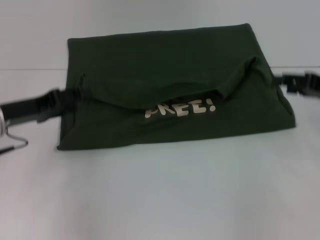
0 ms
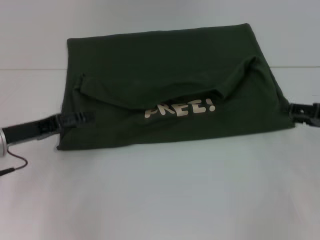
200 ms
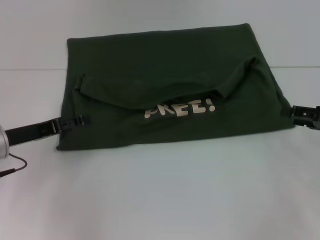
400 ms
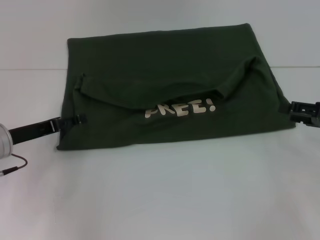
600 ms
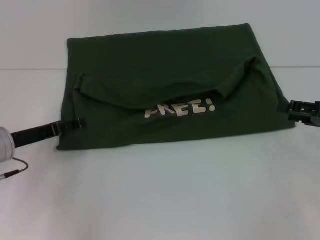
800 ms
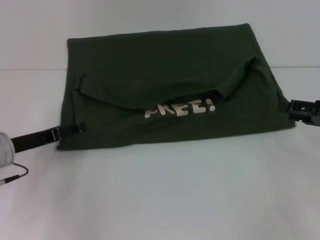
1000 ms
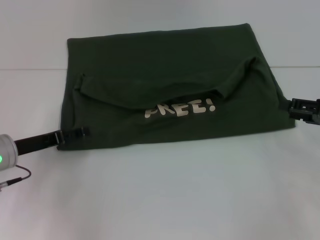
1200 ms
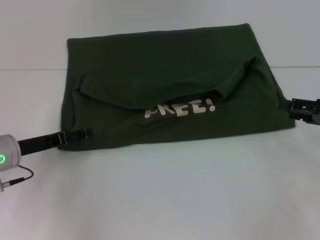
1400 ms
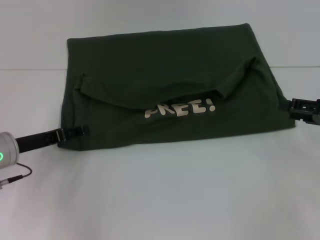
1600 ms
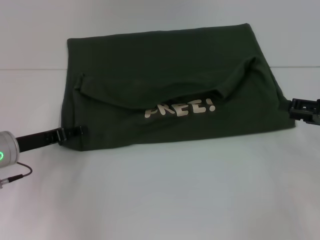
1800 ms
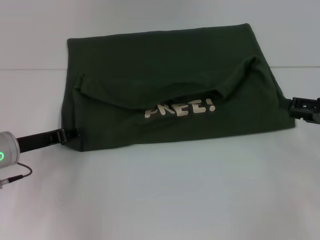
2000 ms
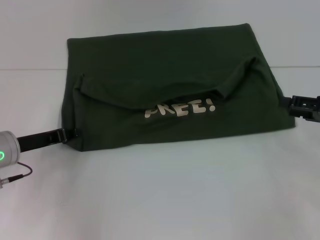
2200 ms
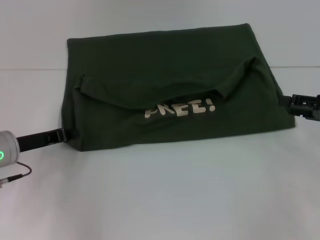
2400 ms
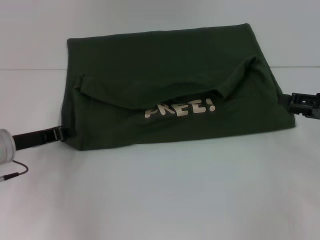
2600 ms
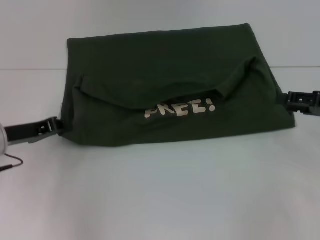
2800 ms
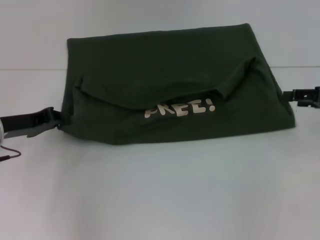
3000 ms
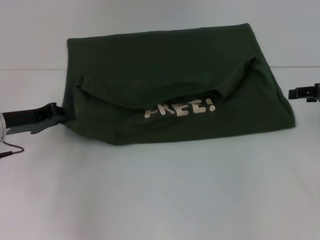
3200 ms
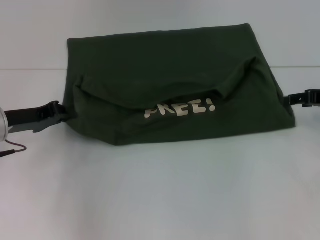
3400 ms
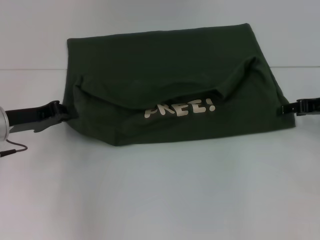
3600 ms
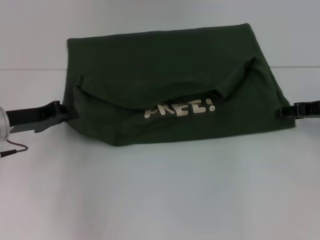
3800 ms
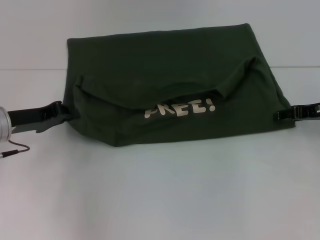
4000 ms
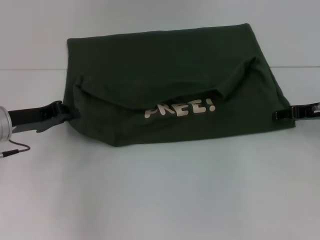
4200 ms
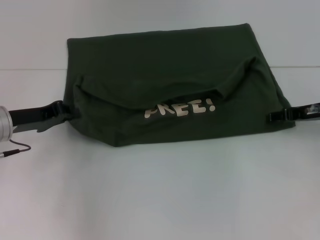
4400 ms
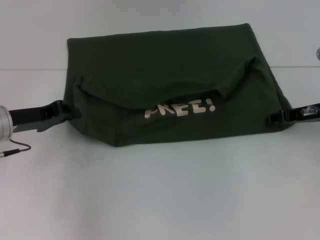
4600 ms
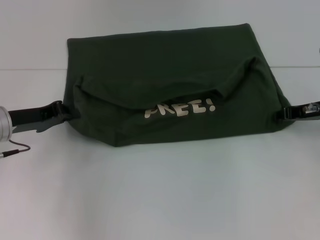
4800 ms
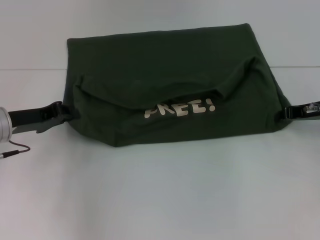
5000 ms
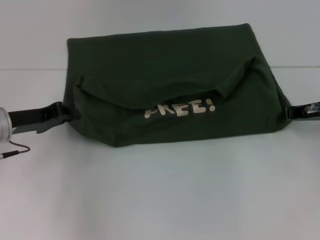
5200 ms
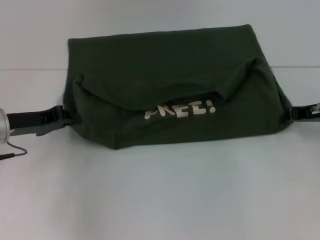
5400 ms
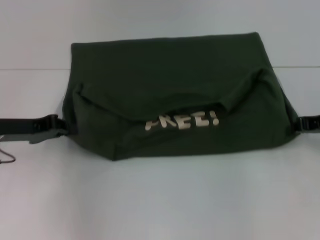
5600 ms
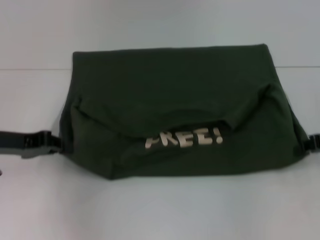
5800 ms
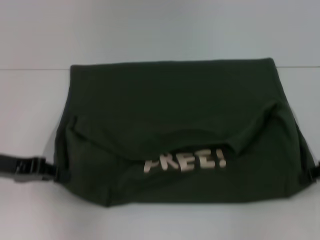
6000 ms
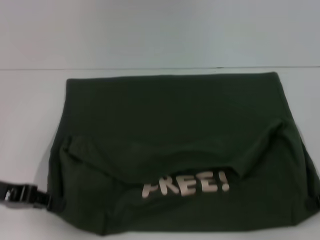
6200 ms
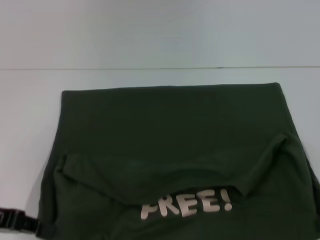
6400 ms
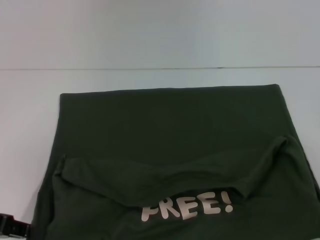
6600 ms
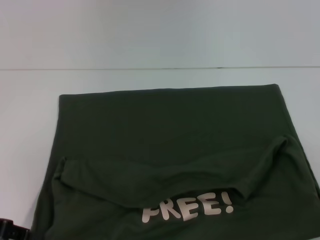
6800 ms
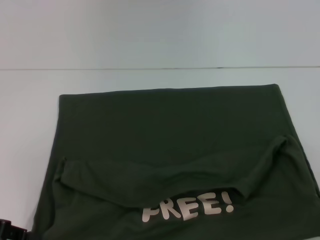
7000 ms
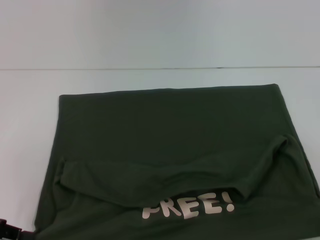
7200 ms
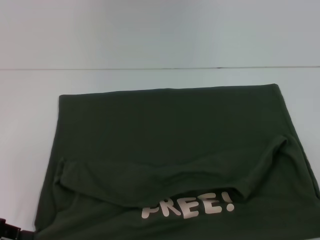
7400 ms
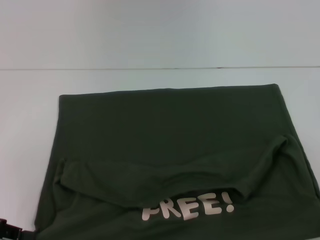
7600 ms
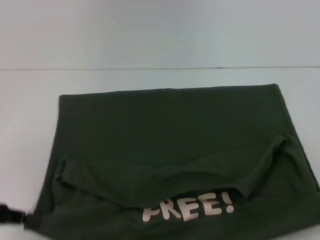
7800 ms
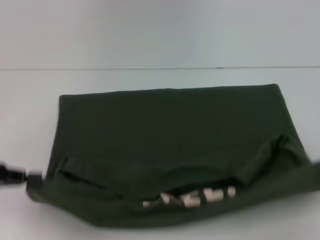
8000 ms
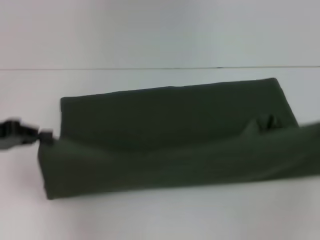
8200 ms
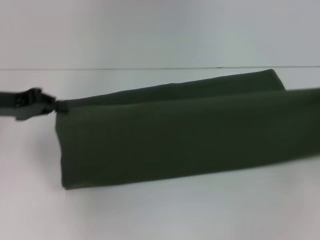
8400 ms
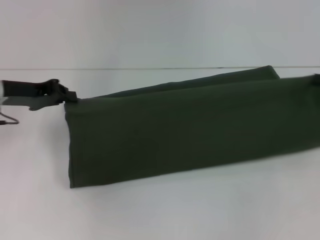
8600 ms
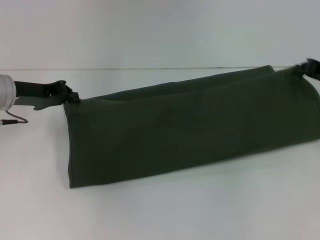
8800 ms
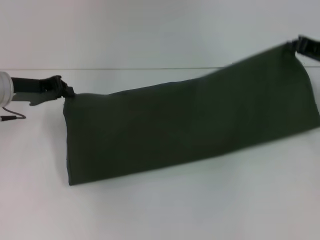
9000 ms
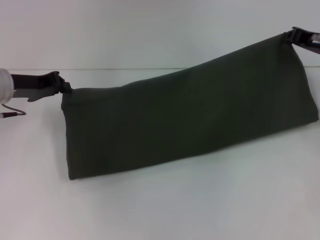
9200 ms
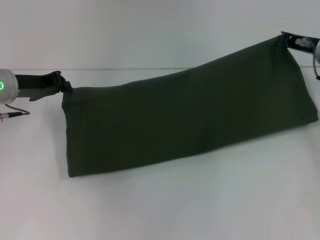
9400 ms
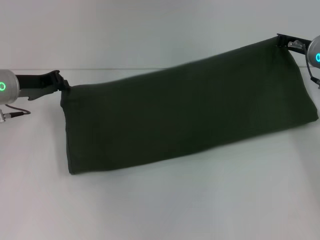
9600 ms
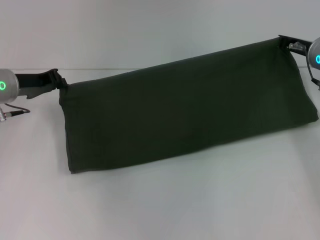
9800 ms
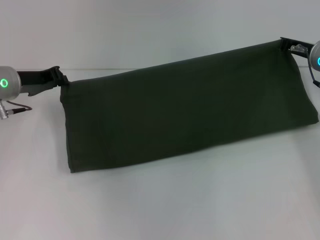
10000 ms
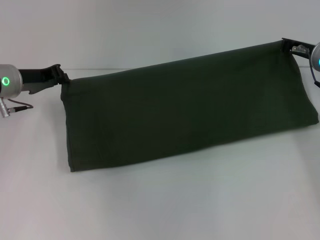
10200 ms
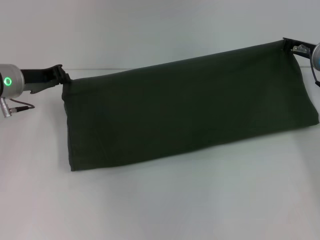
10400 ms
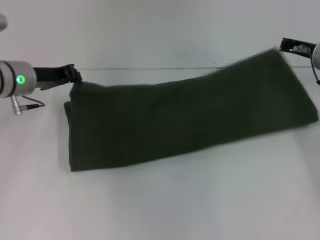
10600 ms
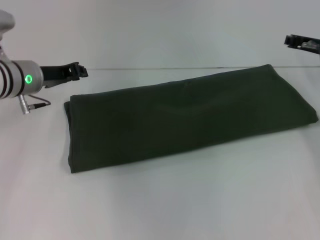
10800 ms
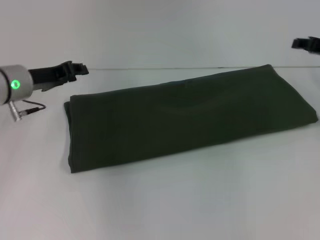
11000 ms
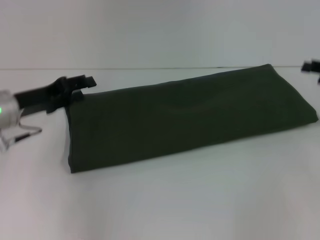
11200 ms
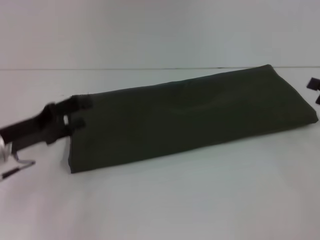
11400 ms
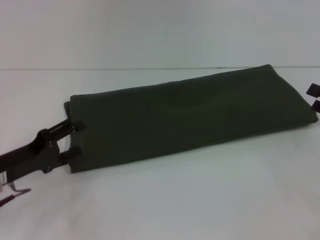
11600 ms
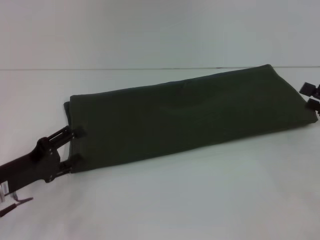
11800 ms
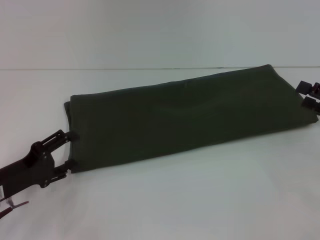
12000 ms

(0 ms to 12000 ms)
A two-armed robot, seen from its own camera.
Step, 0 ms - 7000 ms: Pull the clothes with your left hand.
Step, 0 ms - 7000 ms: Pull the clothes with your right hand.
Step, 7200 ms - 10600 ms: Fold the clothes with your right hand.
0 ms - 1600 ms: The right gripper ends up roughly 5 cm from where it was, while the left gripper goes roughly 5 cm downward, and opens.
1600 ms - 3000 ms: The left gripper closes.
3000 ms - 4400 ms: The right gripper shifts about 5 cm to the left.
4400 ms - 6000 ms: The left gripper is displaced backward by roughly 5 cm; the right gripper heads backward, covering approximately 10 cm, and closes.
6000 ms - 7600 ms: Both grippers move backward, about 5 cm.
7600 ms - 9000 ms: The right gripper is displaced forward and to the left by about 20 cm. Meanwhile the left gripper travels forward by some 15 cm.
9000 ms - 10400 ms: The right gripper changes place by about 5 cm.
10400 ms - 12000 ms: The left gripper travels backward and downward by about 20 cm, and opens up. Meanwhile the right gripper travels backward and to the right by some 20 cm, and opens its fingers.

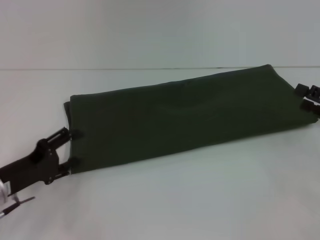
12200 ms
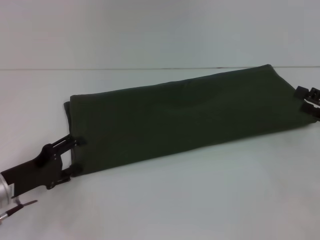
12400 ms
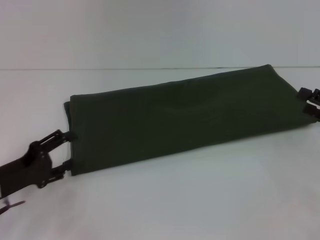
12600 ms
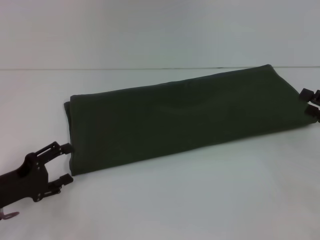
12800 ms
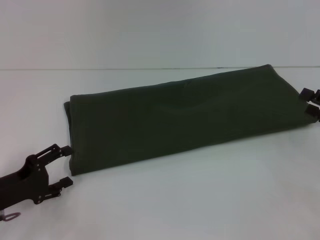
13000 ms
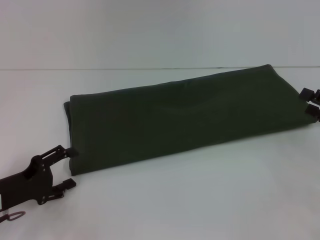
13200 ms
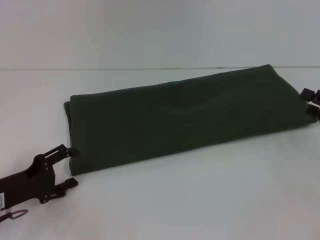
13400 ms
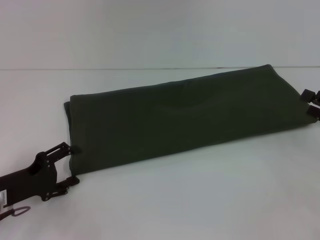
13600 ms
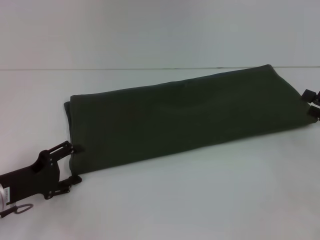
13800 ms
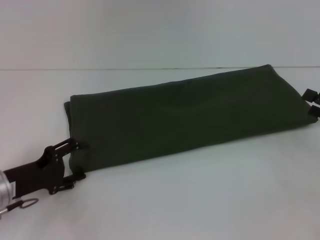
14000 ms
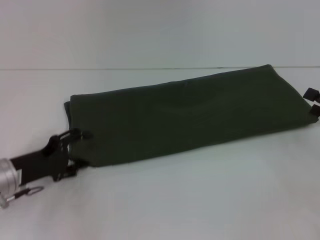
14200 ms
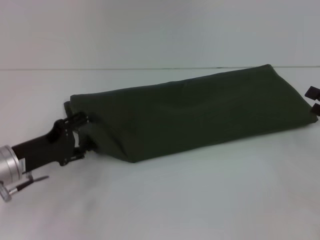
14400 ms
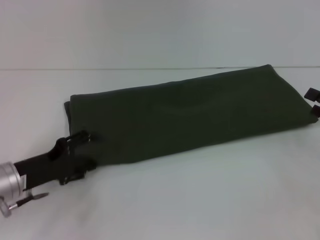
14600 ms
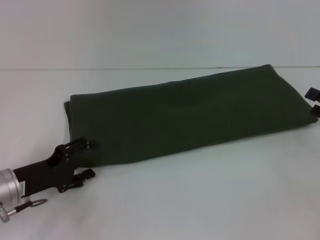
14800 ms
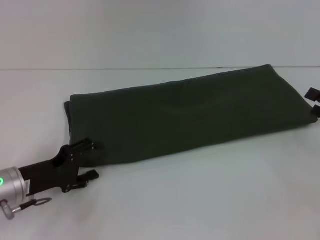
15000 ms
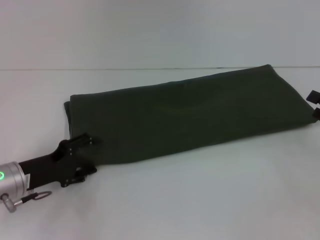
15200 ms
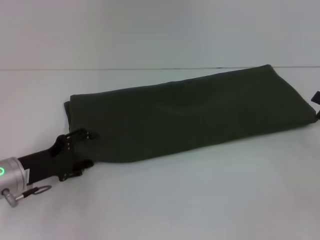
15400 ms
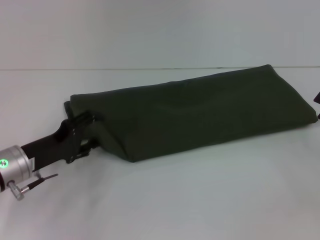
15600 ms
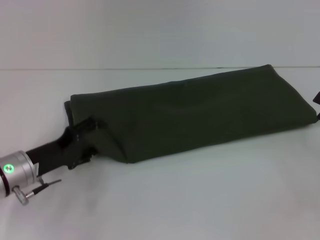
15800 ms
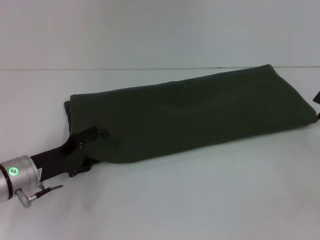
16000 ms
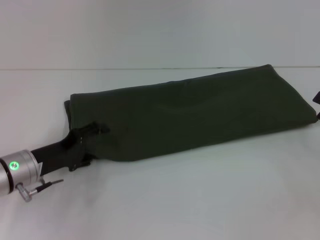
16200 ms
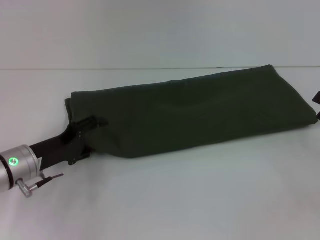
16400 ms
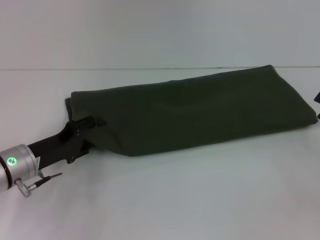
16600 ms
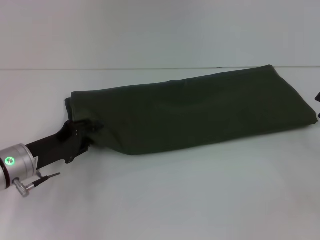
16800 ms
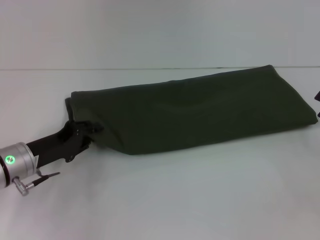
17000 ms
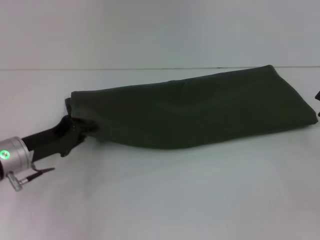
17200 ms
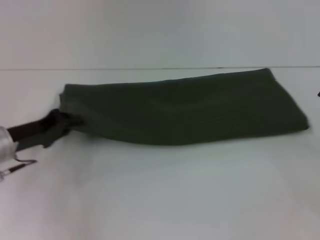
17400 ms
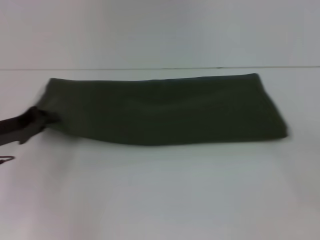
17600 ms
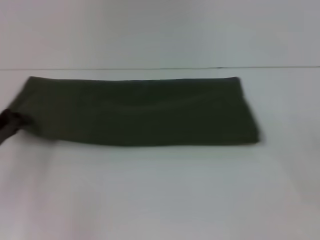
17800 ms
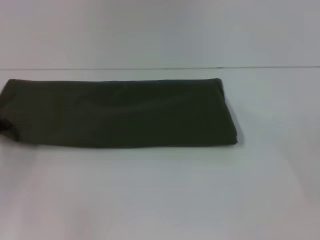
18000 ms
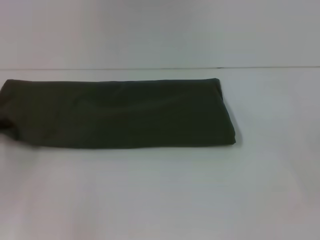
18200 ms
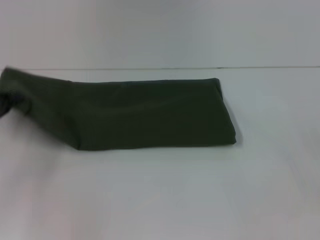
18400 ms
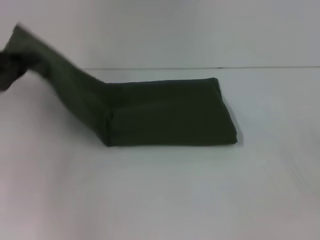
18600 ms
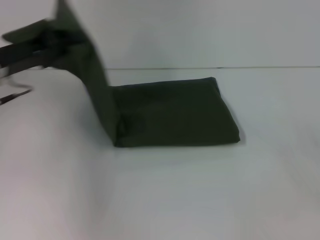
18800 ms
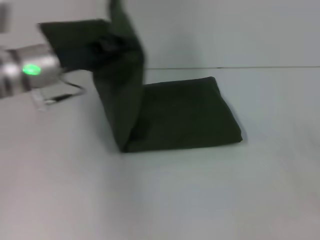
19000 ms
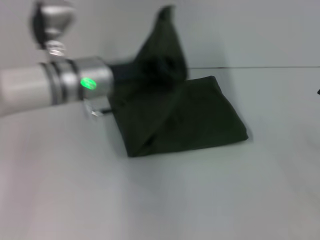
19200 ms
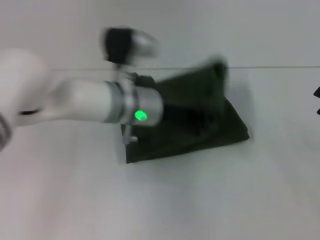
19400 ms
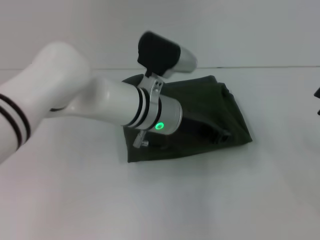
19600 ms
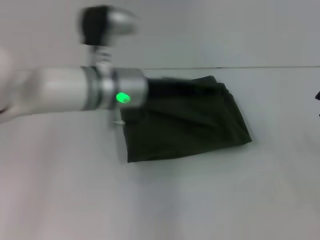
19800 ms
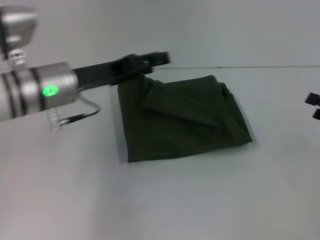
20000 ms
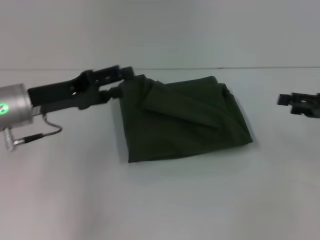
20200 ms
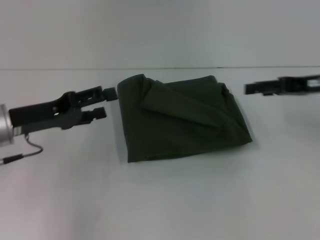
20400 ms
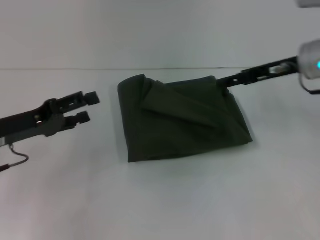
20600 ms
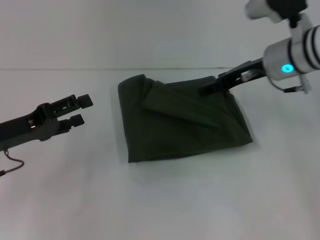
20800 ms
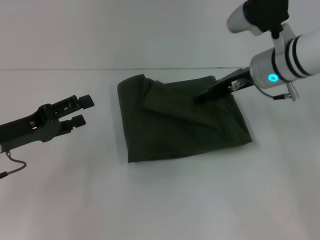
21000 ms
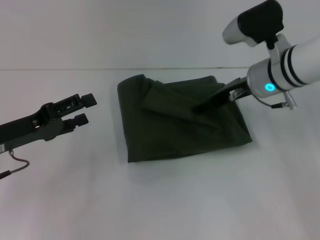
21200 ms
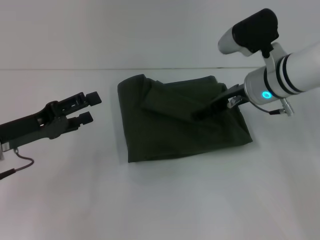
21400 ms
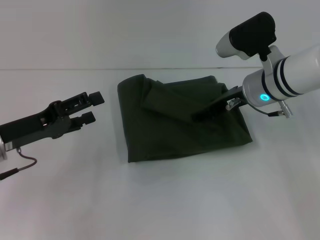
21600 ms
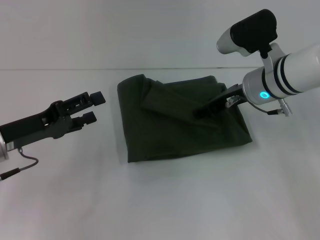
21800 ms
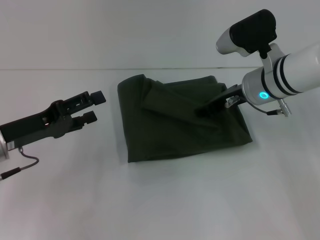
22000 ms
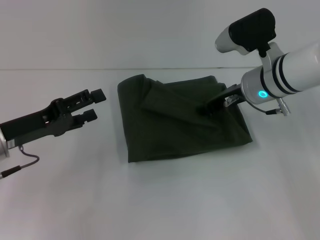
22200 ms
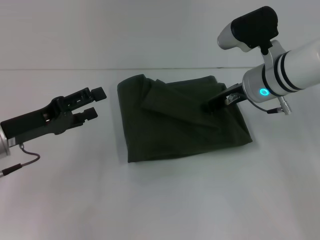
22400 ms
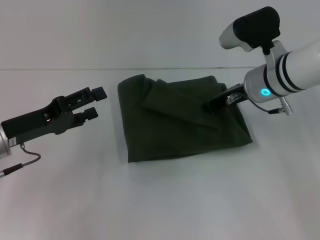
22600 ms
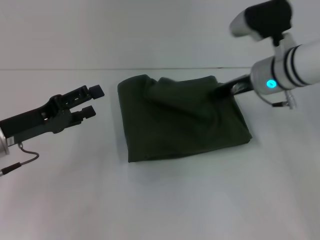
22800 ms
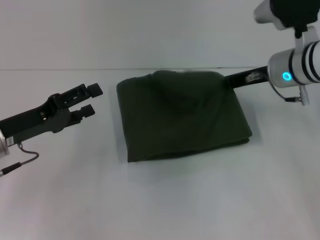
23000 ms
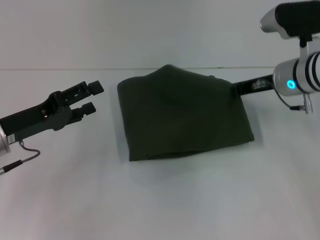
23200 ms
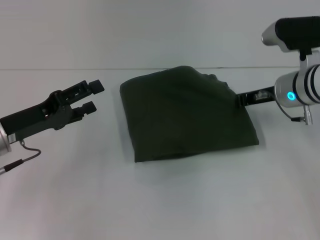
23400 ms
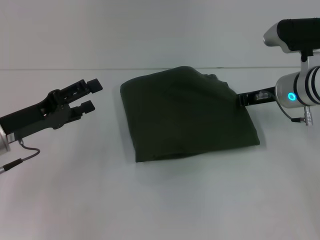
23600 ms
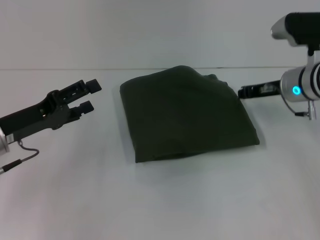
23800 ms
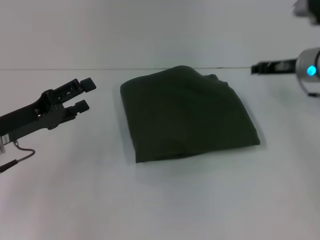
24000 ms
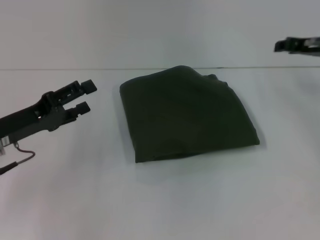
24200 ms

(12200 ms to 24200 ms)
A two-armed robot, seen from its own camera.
Step, 12200 ms - 19800 ms: Fold the clothes with your left hand.
12200 ms - 16600 ms: There are only small adjustments of the grippers.
16600 ms - 18200 ms: The left gripper shifts approximately 10 cm to the left, and closes.
18200 ms - 19800 ms: The left gripper travels to the right by about 30 cm.
19800 ms - 21200 ms: The left gripper goes roughly 20 cm to the left and backward, and opens up. The right gripper goes approximately 25 cm to the left and forward.
21200 ms - 22600 ms: The right gripper closes its fingers.
22600 ms - 24200 ms: The right gripper travels to the right by roughly 10 cm.
